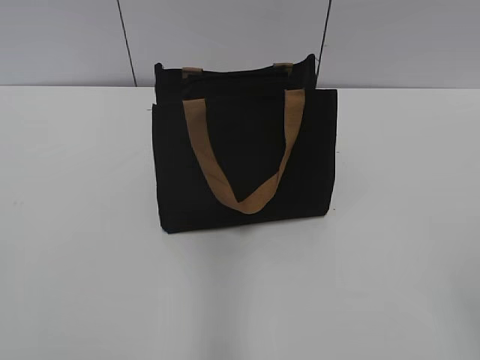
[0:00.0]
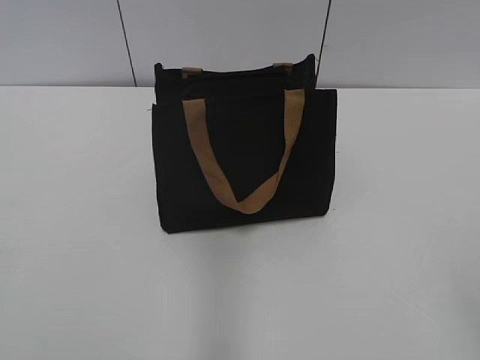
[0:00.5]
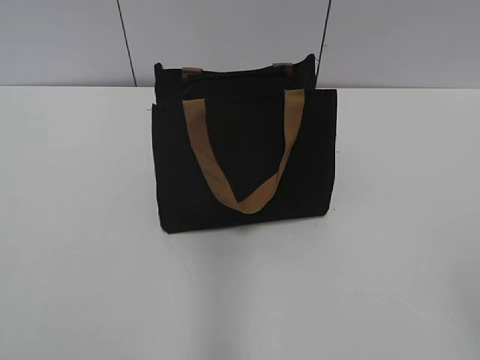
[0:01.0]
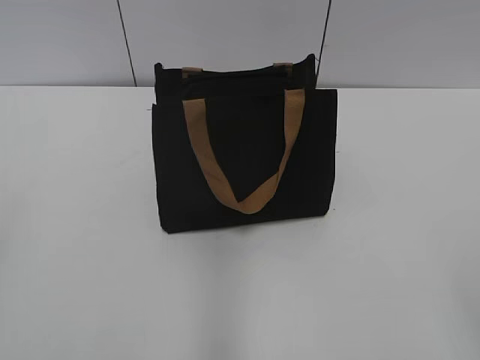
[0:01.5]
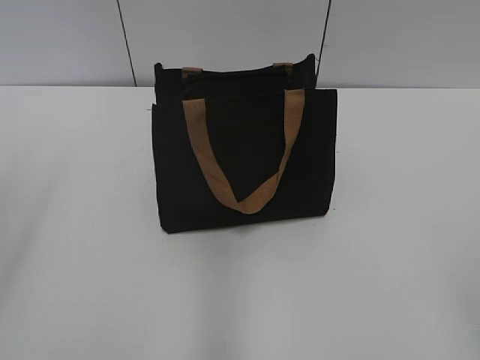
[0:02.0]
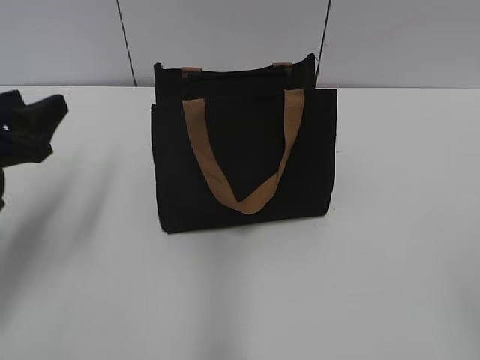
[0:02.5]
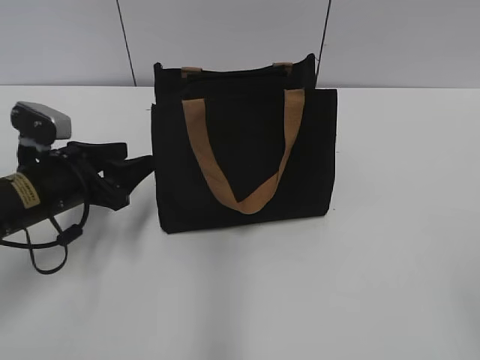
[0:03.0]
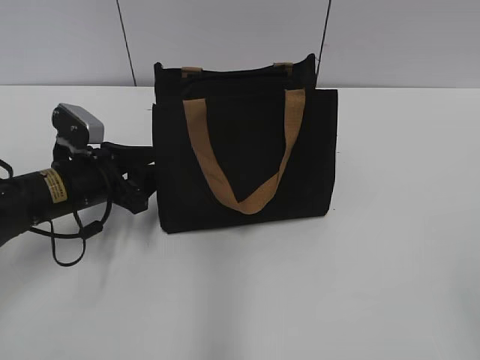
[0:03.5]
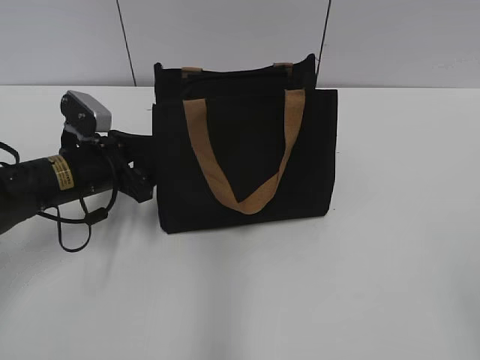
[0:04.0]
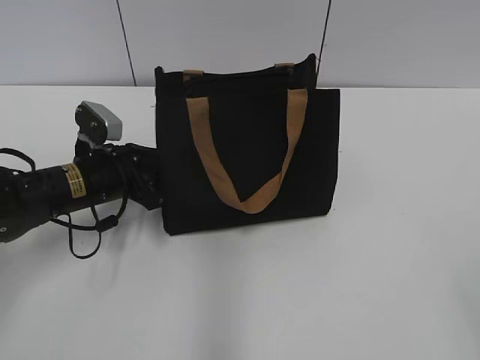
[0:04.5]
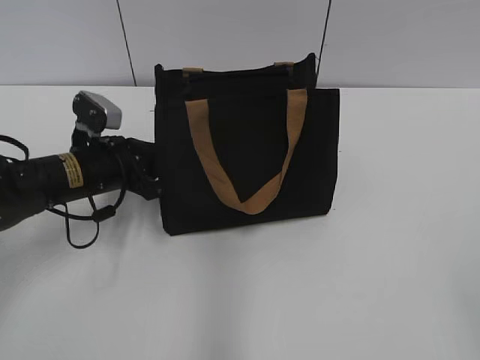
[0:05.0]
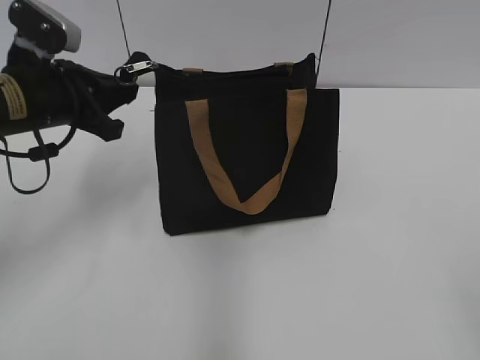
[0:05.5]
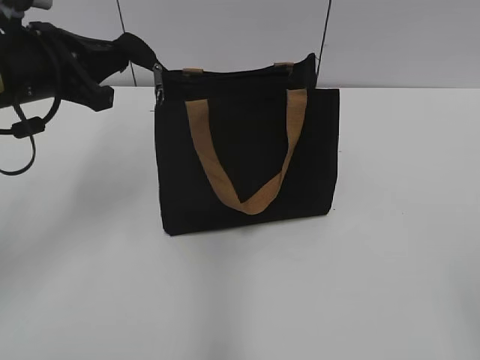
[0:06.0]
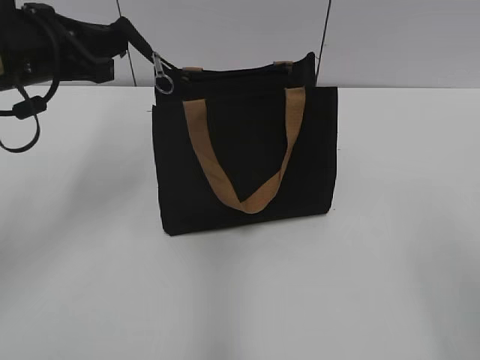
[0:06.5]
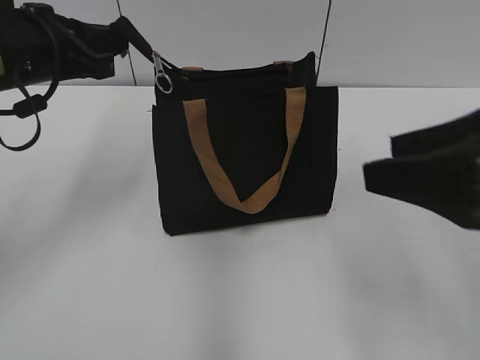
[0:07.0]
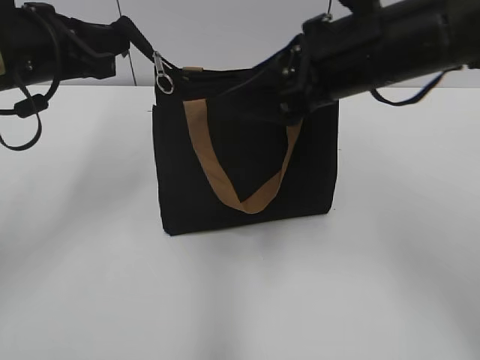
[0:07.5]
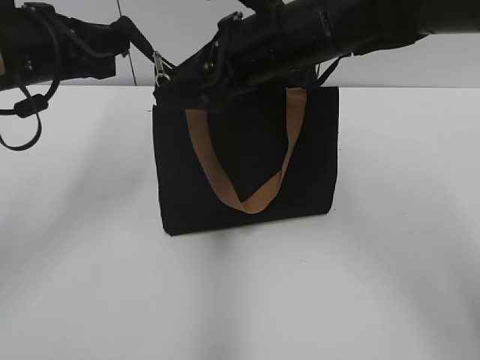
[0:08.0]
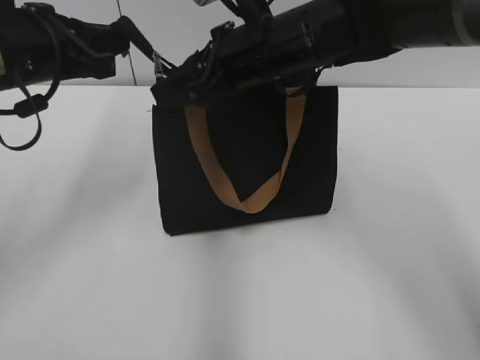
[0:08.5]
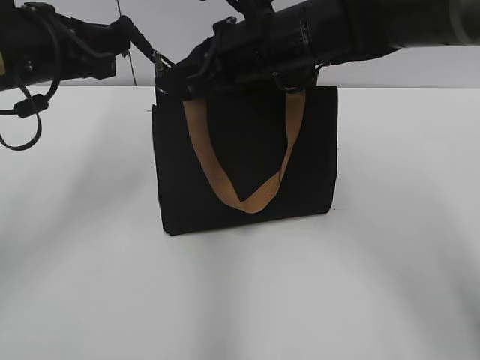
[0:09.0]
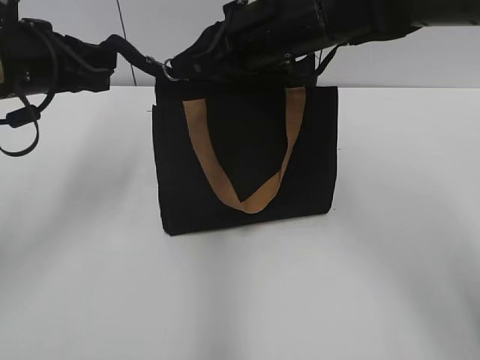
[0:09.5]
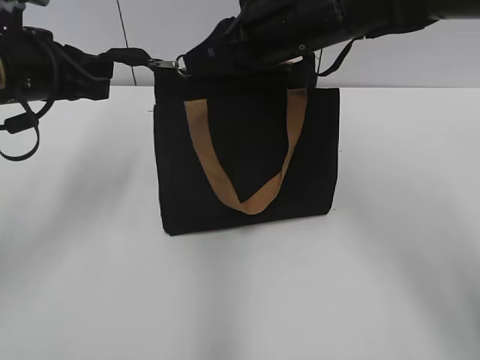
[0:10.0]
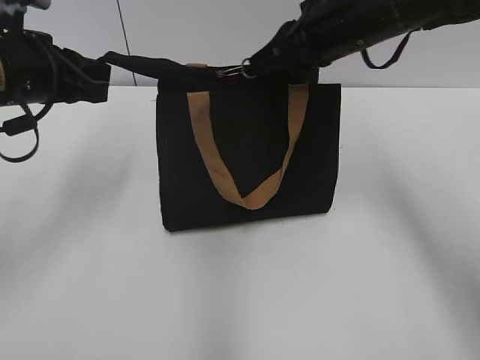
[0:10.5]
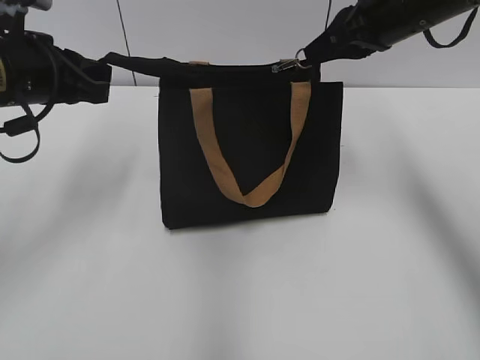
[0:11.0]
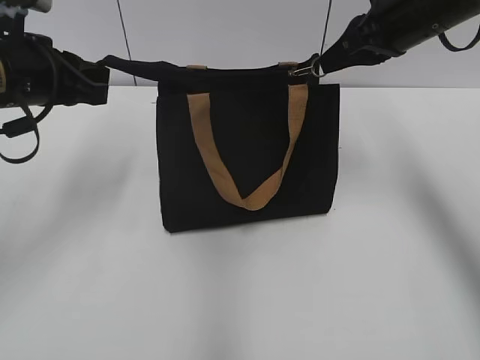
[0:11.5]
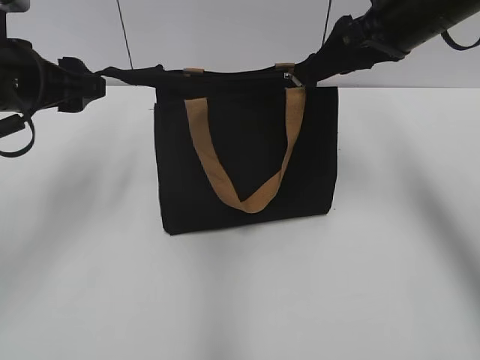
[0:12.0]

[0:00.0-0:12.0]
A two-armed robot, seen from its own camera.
Step, 0:00.0 to 0:11.5: Zip up the bag with your right hand.
0:02.0 to 0:04.0: The left gripper travels downward, forward and to the right by roughly 35 cm.
0:04.0 to 0:06.0: The left gripper moves upward, about 15 cm, and closes up.
0:06.0 to 0:08.0: The right gripper heads forward and to the left, covering approximately 40 cm.
0:08.0 to 0:10.0: The right gripper closes its fingers.
0:10.0 to 0:12.0: The left gripper opens up. The right gripper is displaced to the right by some 10 cm, and opens up.

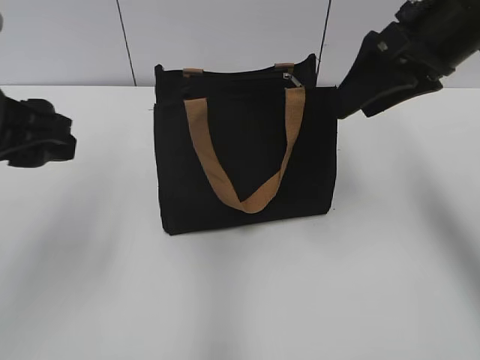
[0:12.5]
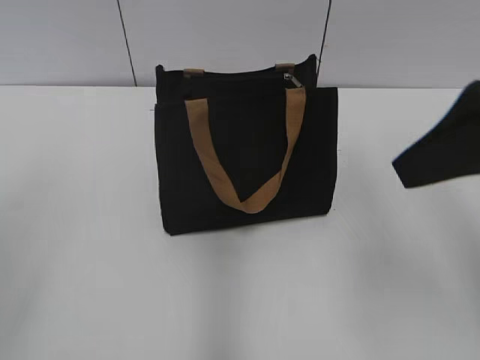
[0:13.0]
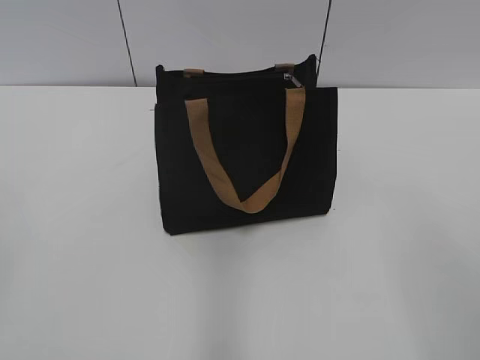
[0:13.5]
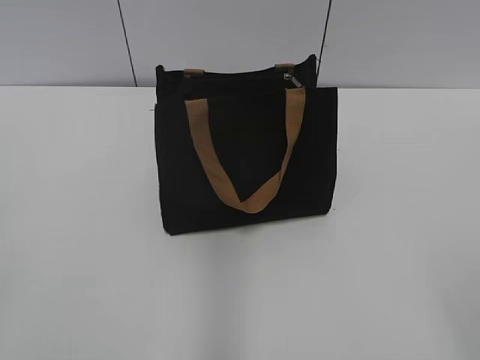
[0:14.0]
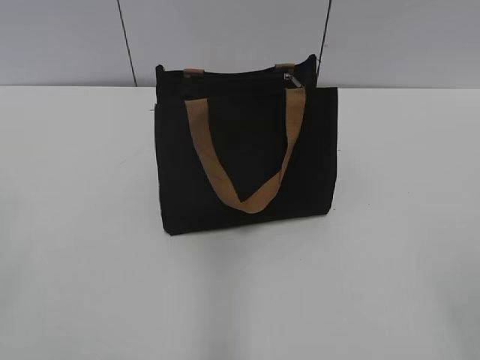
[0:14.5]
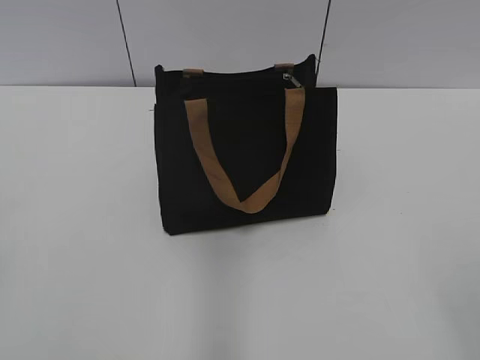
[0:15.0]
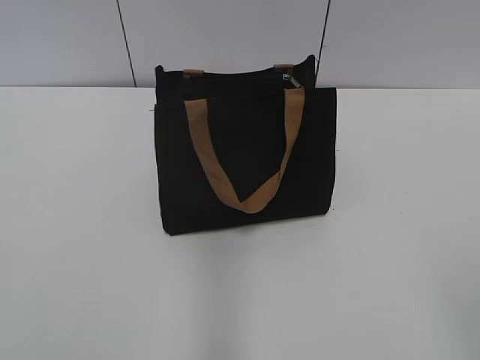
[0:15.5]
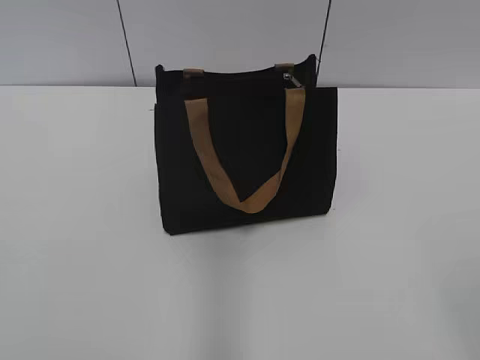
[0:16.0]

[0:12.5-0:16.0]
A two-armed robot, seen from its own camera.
0:12.5 to 0:14.5: The left gripper shifts some 25 cm backward and to the left; the right gripper heads backward, covering roughly 35 cm.

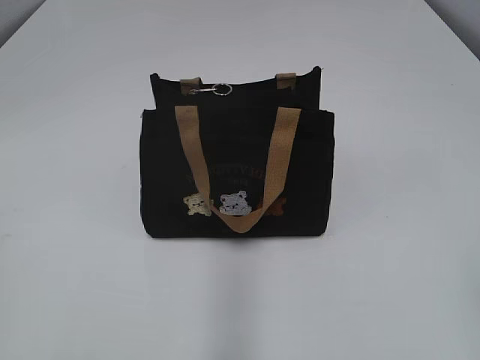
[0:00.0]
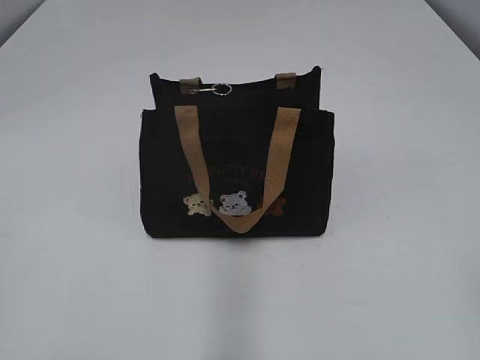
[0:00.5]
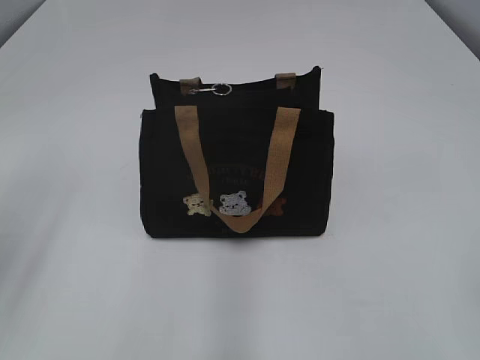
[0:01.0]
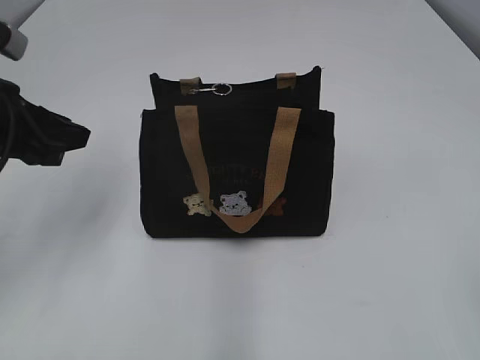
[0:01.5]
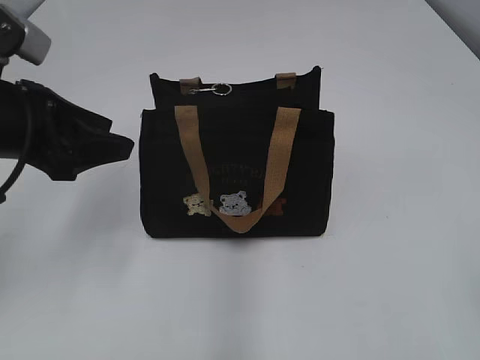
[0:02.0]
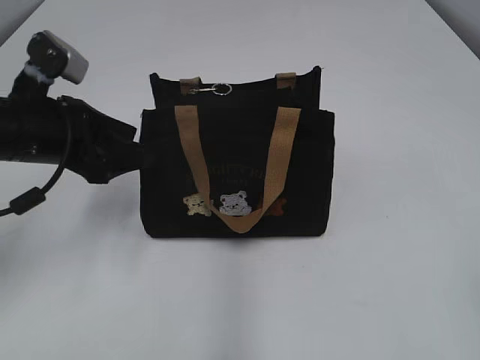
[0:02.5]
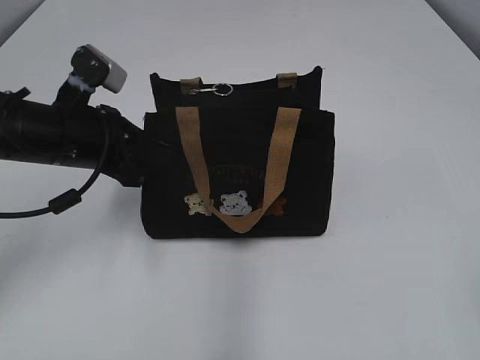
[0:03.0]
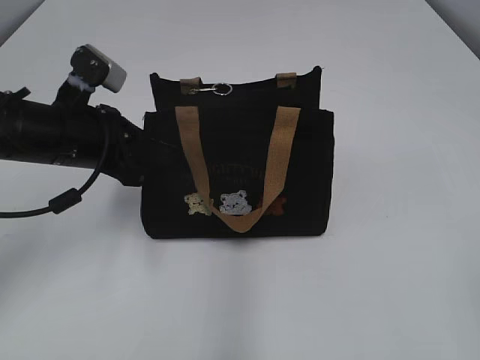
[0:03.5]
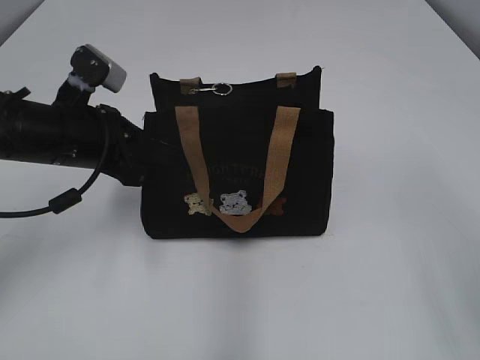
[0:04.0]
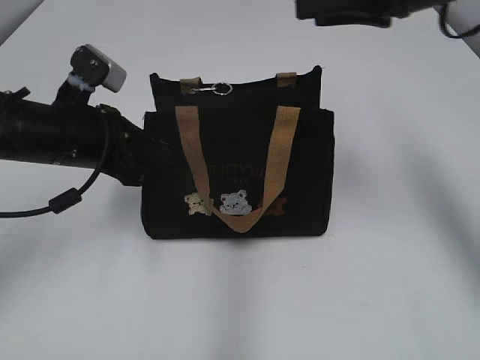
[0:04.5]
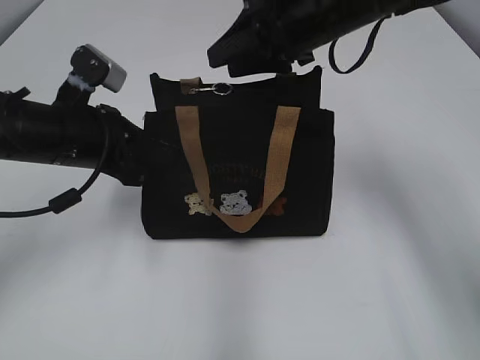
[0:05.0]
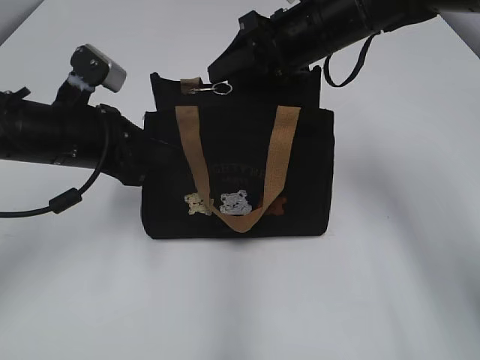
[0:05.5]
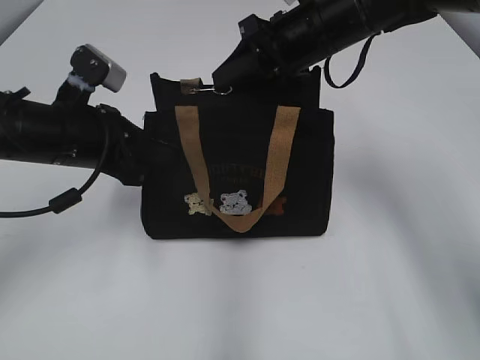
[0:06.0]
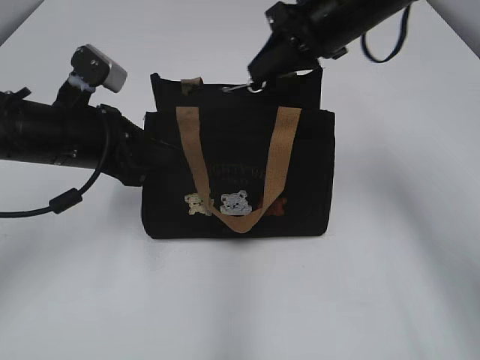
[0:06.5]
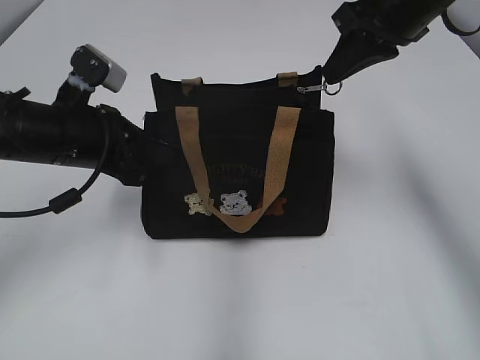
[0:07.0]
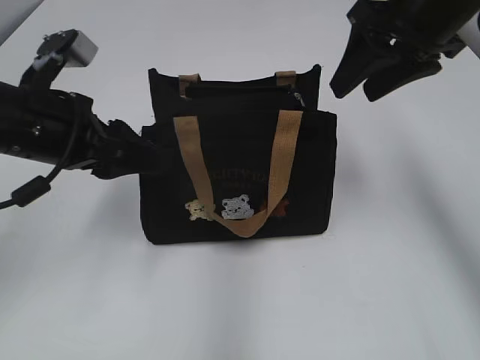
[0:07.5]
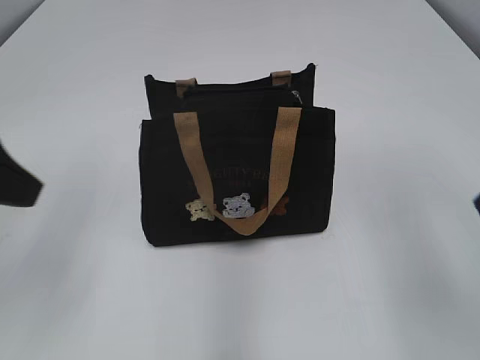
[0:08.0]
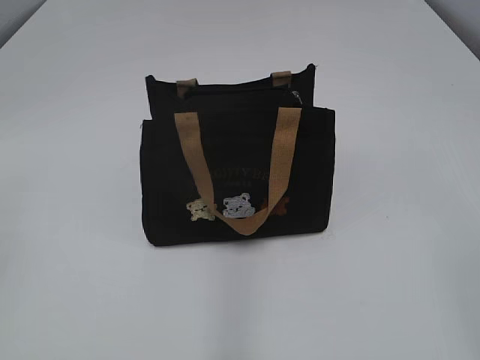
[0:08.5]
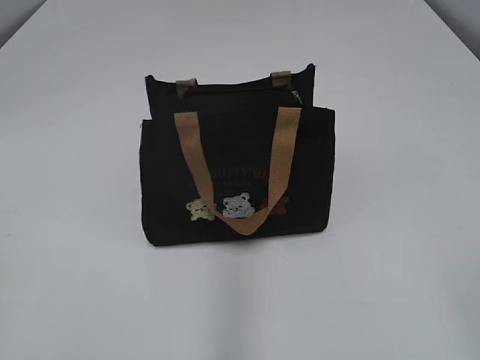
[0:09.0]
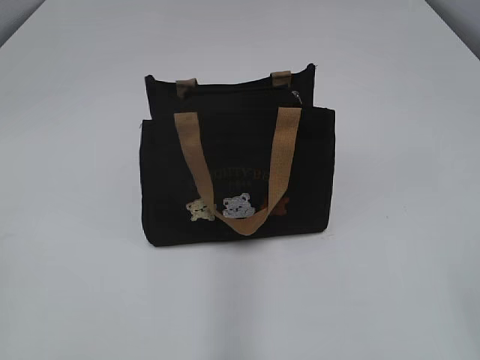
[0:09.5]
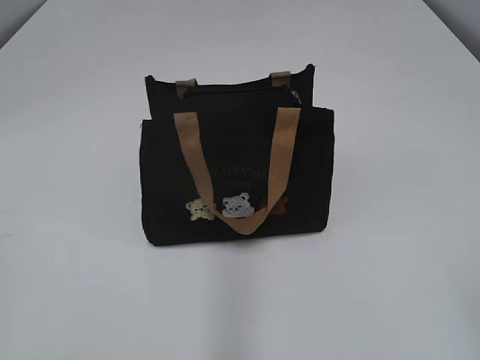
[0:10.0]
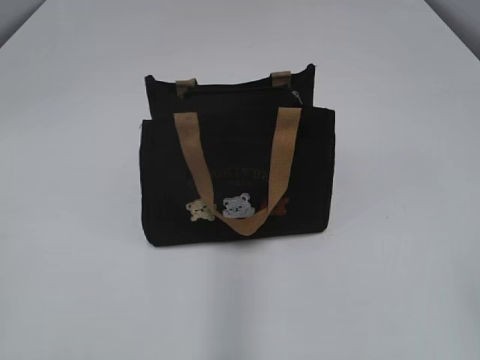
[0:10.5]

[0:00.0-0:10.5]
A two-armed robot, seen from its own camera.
Step, 0:00.0 to 0:07.0: Pull open the zipper with your right hand.
0:02.0 to 0:04.0: The left gripper travels downward by some 5 cm, and closes its fingers.
0:04.0 to 0:06.5: The right gripper moves forward and to the left, about 40 cm, and closes.
0:06.5 to 0:08.5: The left gripper travels backward, upward and to the left by about 35 cm, and opens its fingers; the right gripper is displaced backward and to the right by some 40 cm, and opens its fingers.
